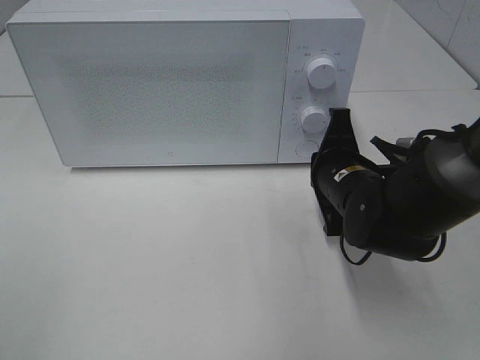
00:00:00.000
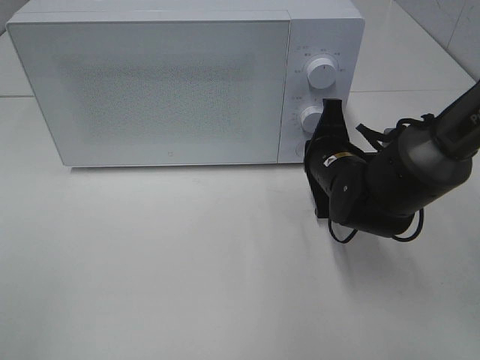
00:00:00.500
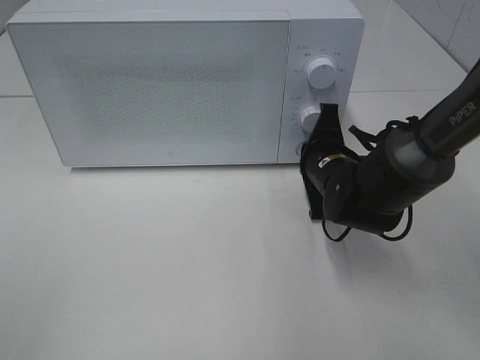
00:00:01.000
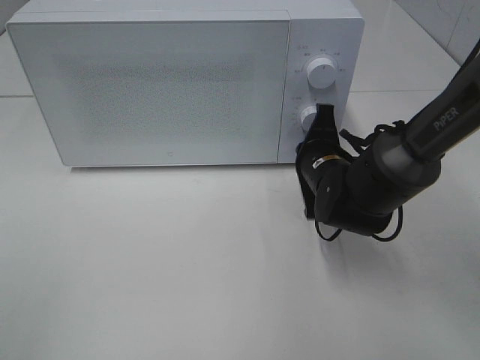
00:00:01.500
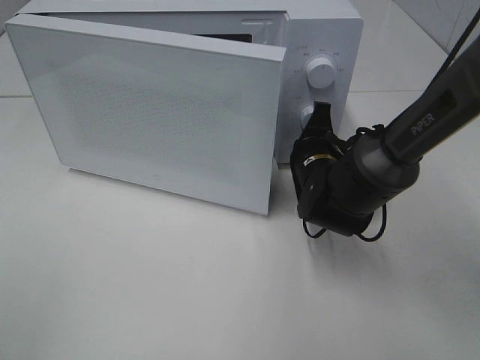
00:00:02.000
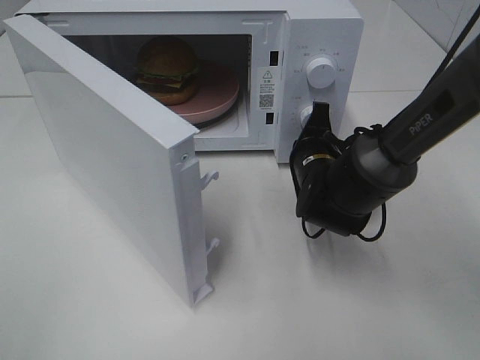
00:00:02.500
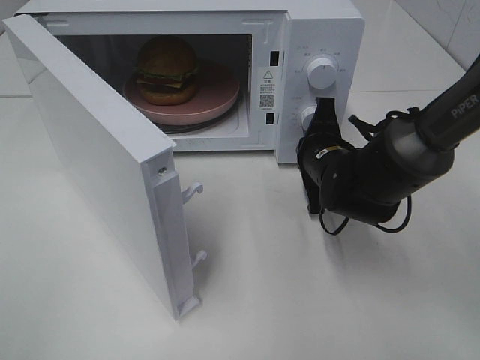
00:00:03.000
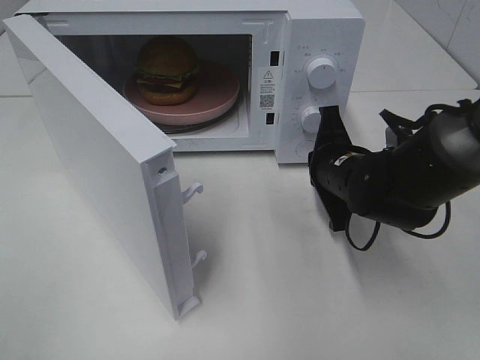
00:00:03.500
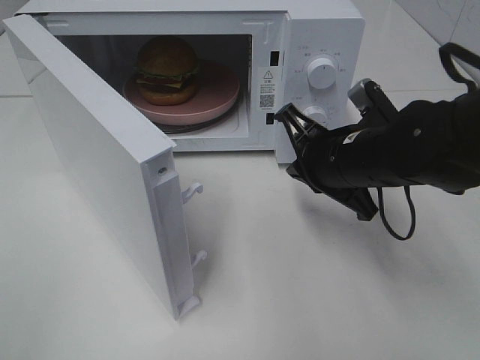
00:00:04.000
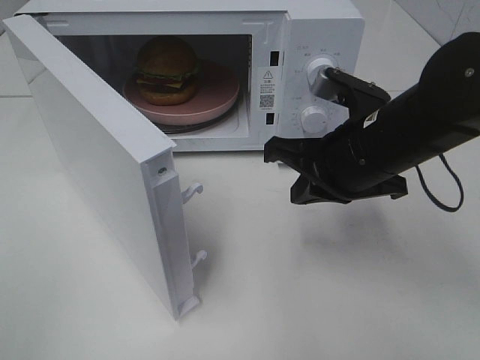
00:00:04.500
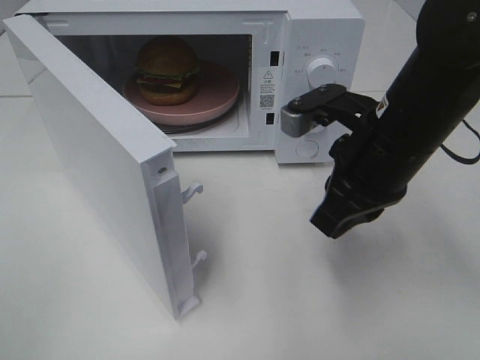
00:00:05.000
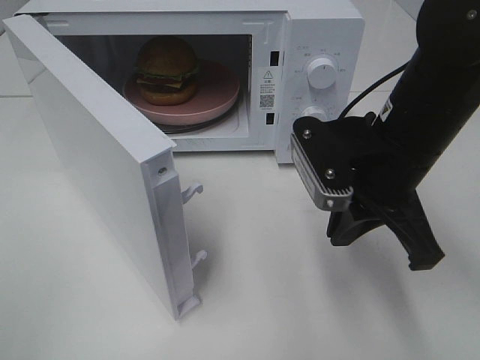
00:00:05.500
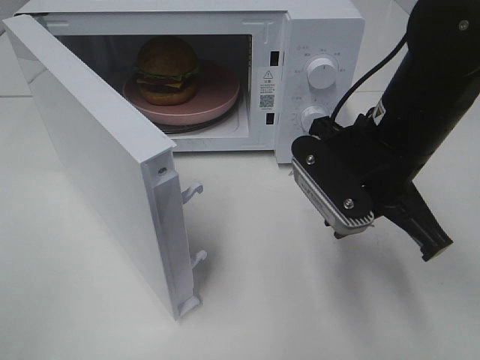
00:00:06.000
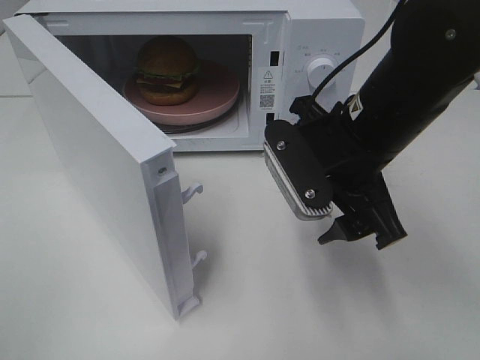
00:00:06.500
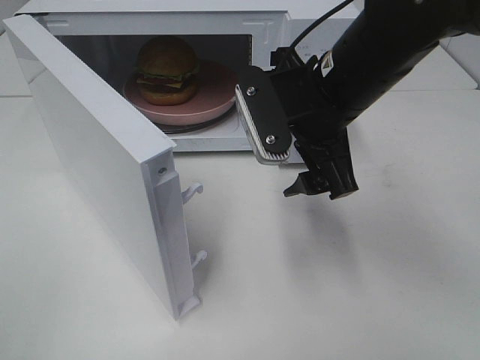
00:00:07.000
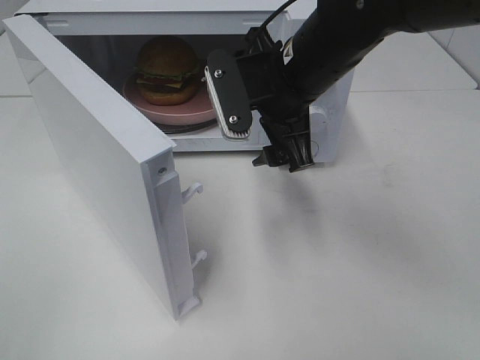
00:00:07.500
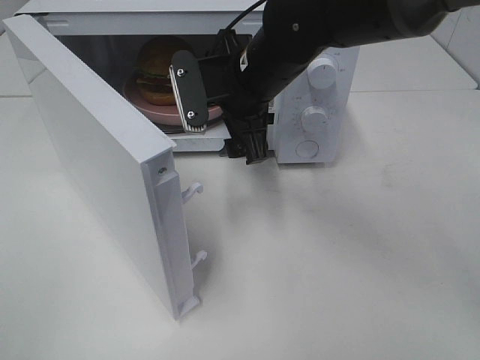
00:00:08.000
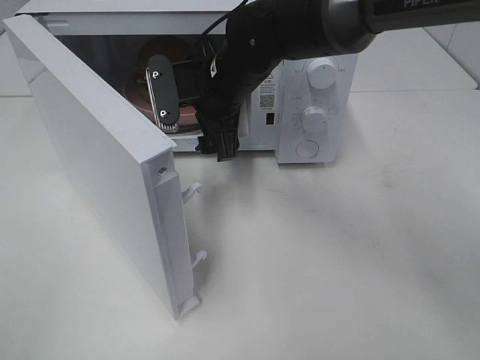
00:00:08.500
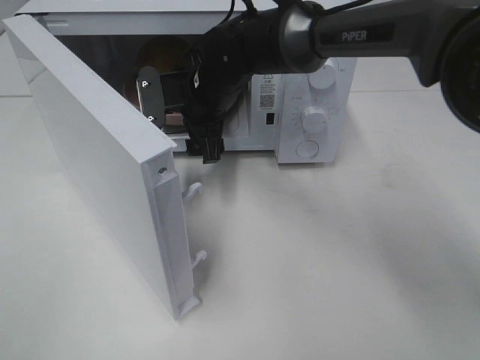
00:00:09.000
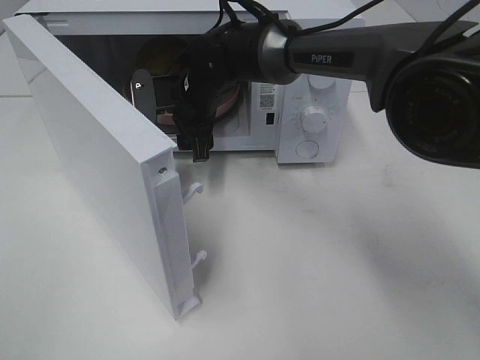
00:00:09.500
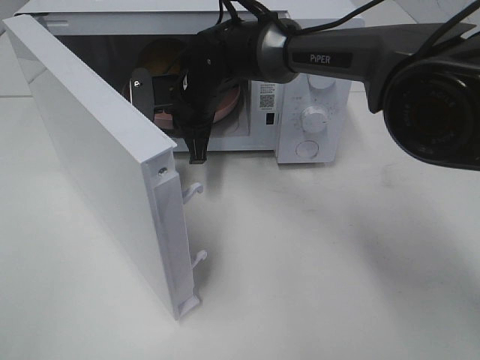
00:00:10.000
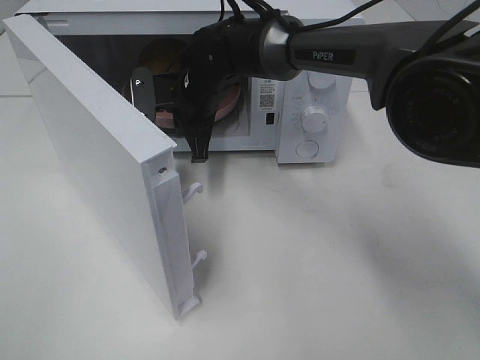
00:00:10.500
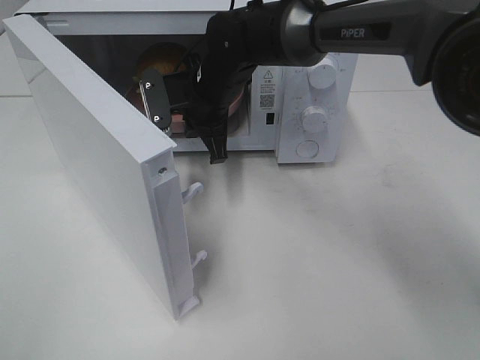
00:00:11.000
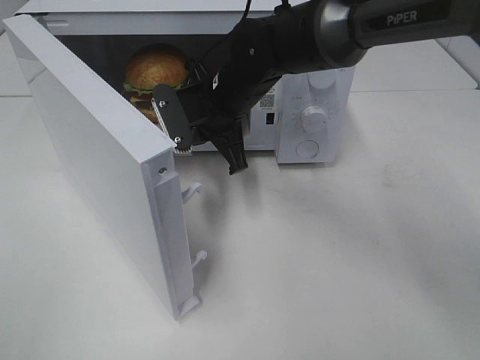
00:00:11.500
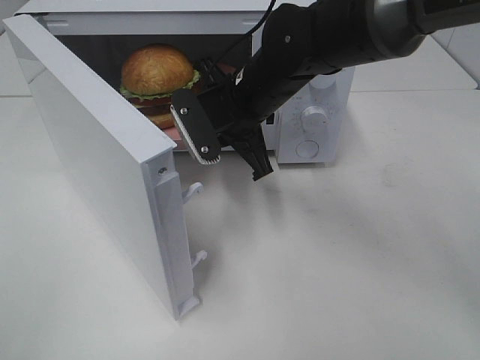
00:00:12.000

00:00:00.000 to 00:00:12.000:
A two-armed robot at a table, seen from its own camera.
Task of the whole recording: Heat the burger.
Step, 00:00:00.000 to 00:00:03.000: Right hand: press the switch.
Step, 00:00:03.500 to 00:00:10.000: Right hand: grab the plate with the hamburger.
00:00:00.000 to 00:00:02.000: The right gripper moves forward, roughly 5 cm.
00:00:02.000 to 00:00:04.000: The right gripper travels upward and backward by approximately 10 cm.
00:00:04.000 to 00:00:06.000: The right gripper moves upward, about 5 cm.
00:00:06.000 to 00:00:08.000: The right gripper goes approximately 15 cm to the left and forward, and opens up.
00:00:08.000 to 00:00:10.000: The right gripper goes roughly 10 cm forward, downward and to the left, and closes.
00:00:10.000 to 00:00:12.000: The right gripper moves backward and to the right, about 10 cm.

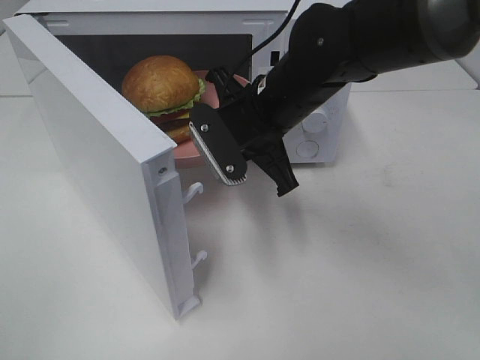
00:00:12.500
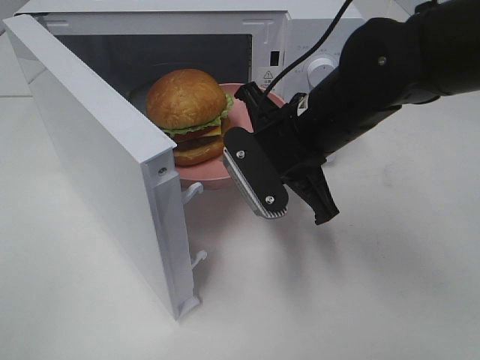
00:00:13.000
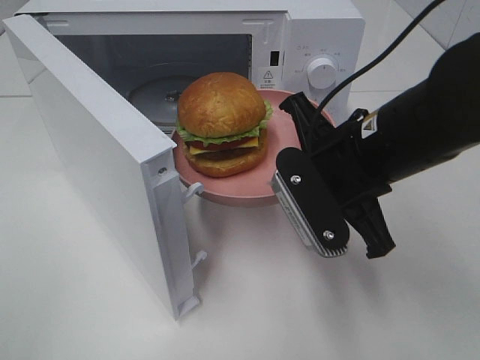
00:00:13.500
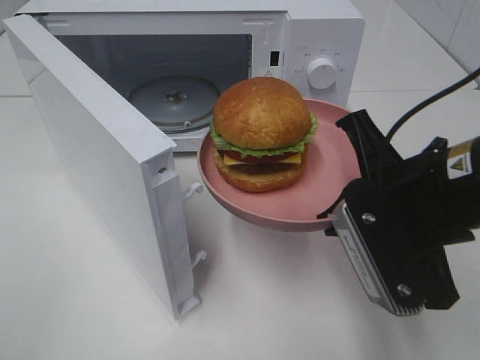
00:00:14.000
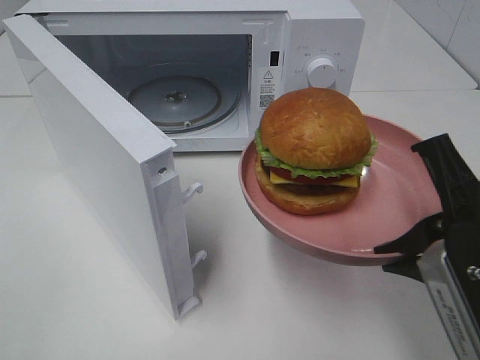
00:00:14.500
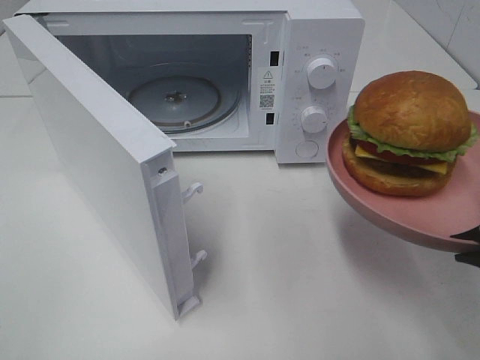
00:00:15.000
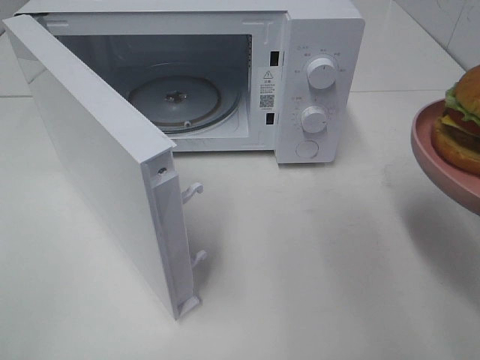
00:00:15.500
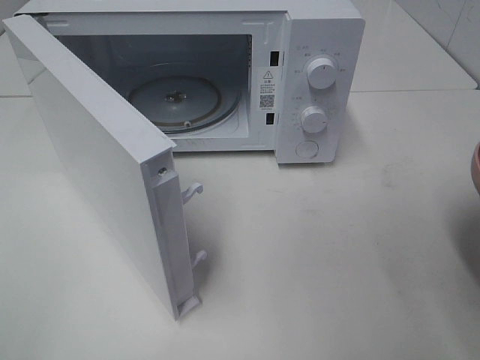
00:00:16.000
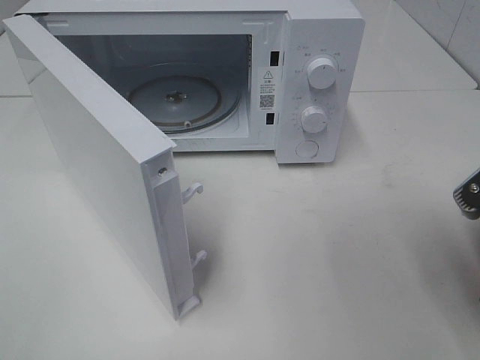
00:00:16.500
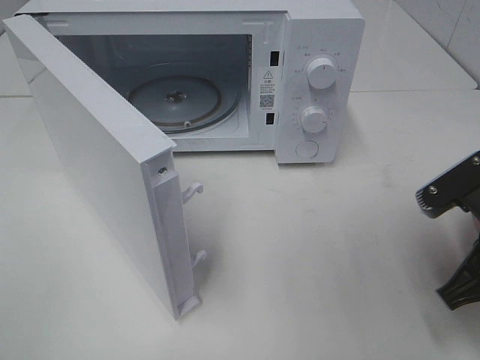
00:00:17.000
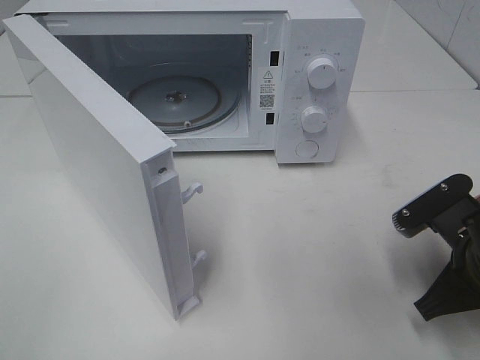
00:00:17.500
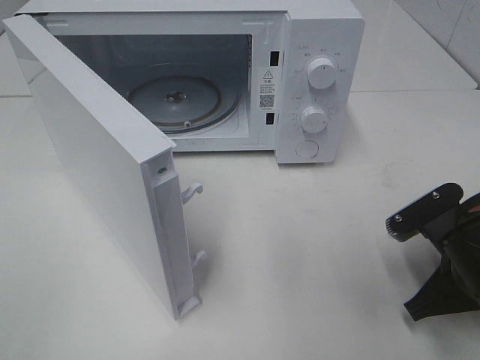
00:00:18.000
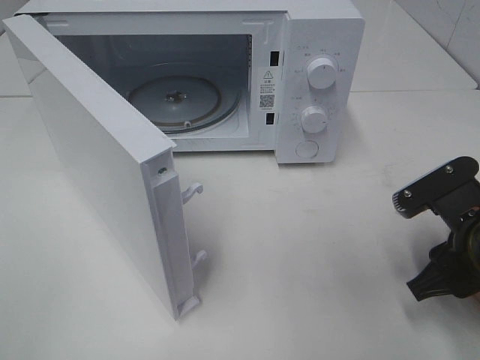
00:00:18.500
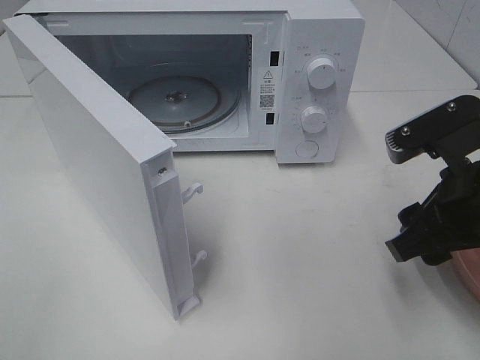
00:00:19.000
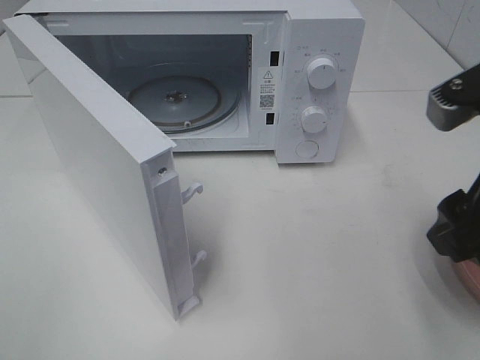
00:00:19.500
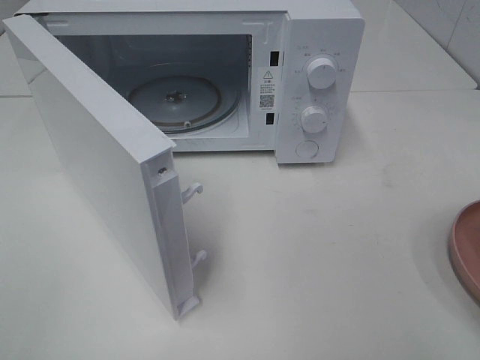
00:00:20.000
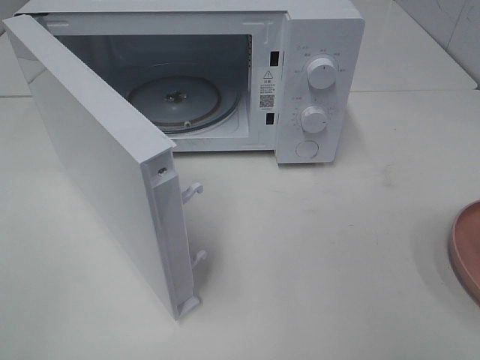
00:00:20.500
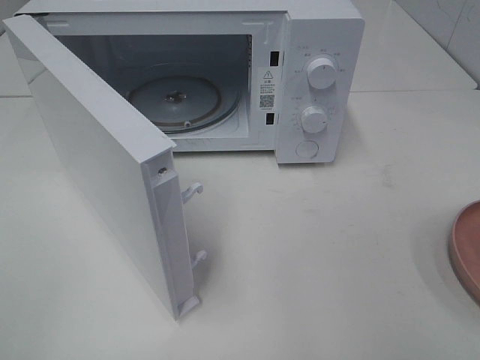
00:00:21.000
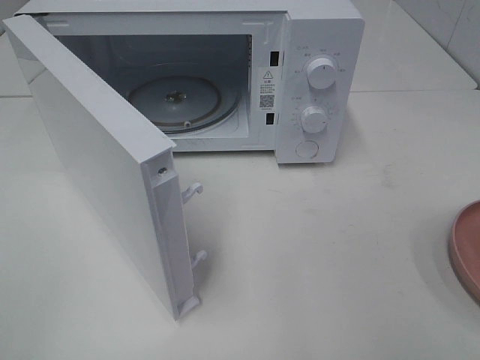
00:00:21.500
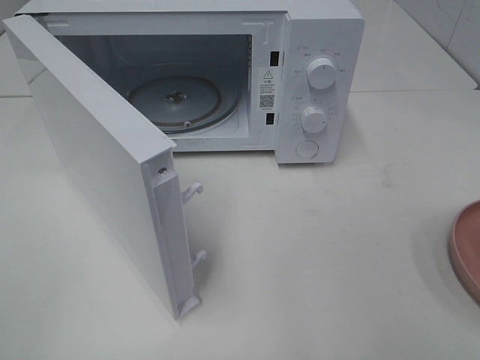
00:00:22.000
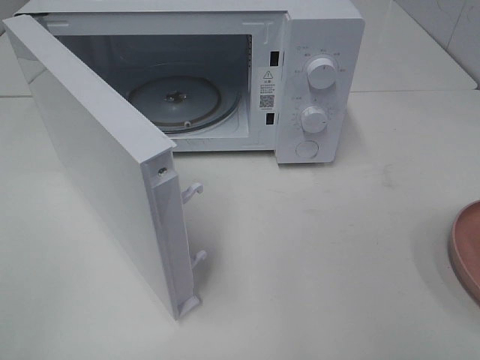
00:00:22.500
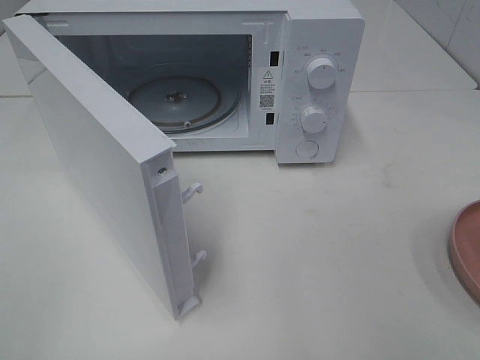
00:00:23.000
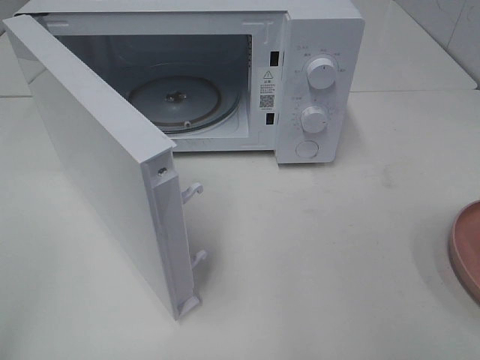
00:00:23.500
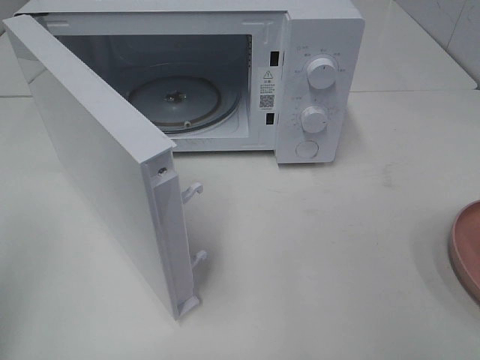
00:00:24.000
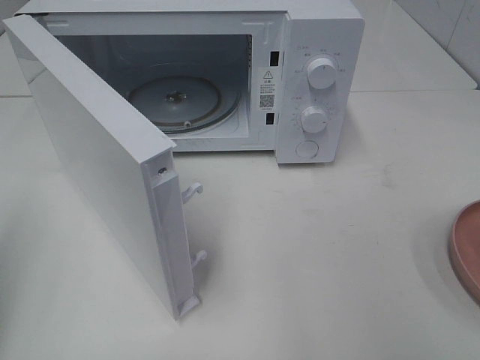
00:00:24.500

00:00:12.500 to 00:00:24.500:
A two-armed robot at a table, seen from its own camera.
Task of the whole recording: Heat the burger.
Step, 00:00:12.500 to 00:00:18.500: Right hand: place the plate in the microwave.
00:00:12.500 to 00:00:14.500: The right gripper moves backward and to the right, about 25 cm.
00:00:14.500 to 00:00:16.500: The right gripper goes approximately 5 cm to the right.
00:00:16.500 to 00:00:18.500: The right gripper is displaced downward by approximately 5 cm, and opens up.
00:00:18.500 to 00:00:20.500: The right gripper moves upward and backward, some 25 cm.

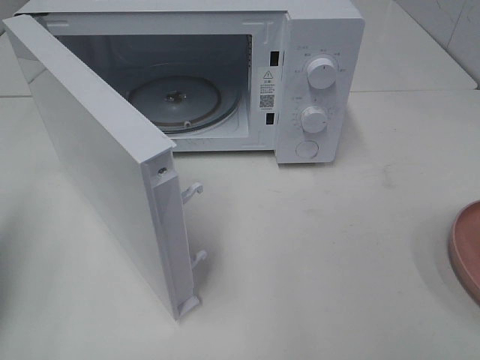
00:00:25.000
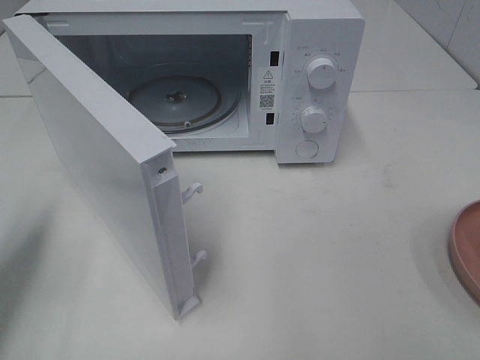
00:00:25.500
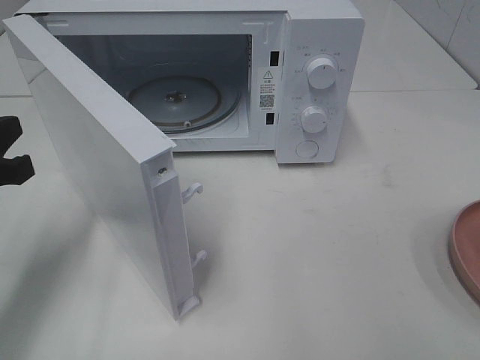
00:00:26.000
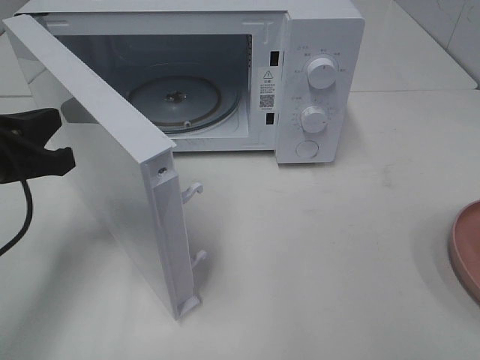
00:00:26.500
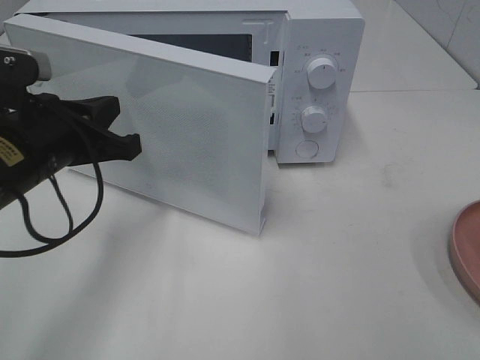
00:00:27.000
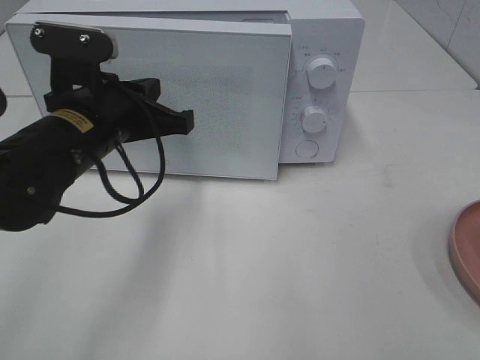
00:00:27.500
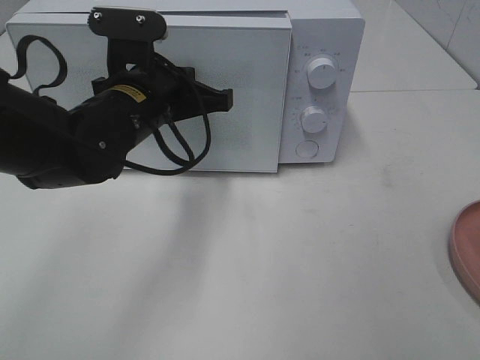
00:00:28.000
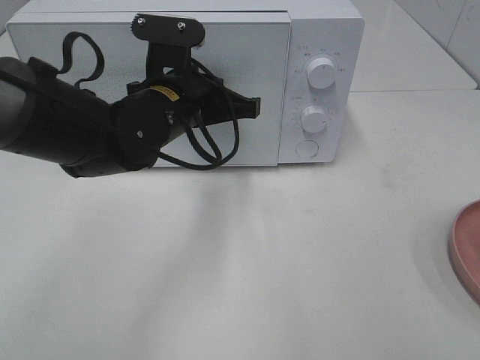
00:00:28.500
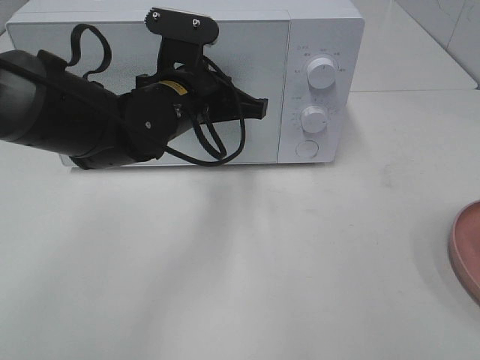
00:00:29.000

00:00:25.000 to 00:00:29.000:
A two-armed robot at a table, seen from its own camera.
Task of the whole recording: Heat the burger.
00:00:25.000 to 00:00:27.000: The left gripper heads to the right and forward, covering about 20 cm.
00:00:27.000 to 00:00:29.000: The left gripper moves to the right and forward, approximately 15 cm.
